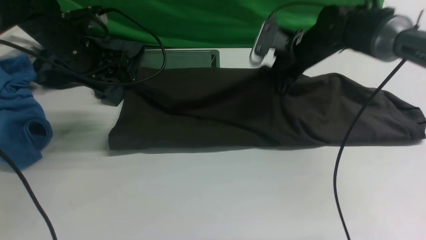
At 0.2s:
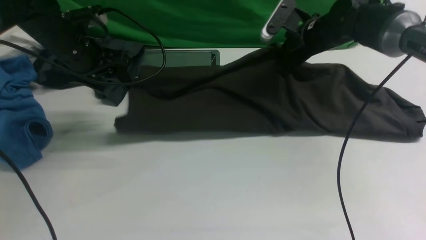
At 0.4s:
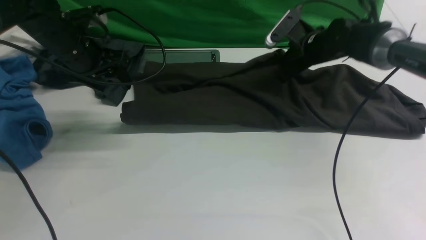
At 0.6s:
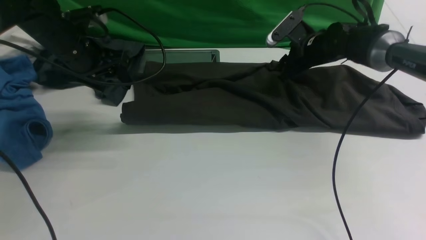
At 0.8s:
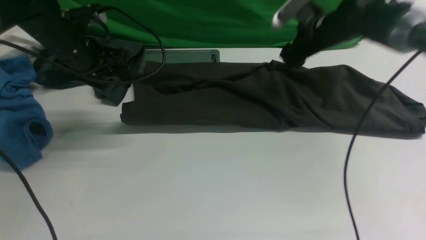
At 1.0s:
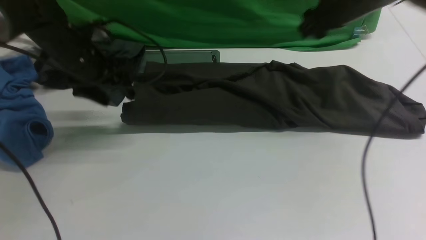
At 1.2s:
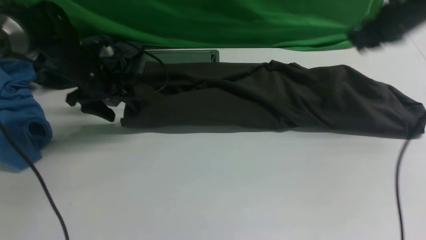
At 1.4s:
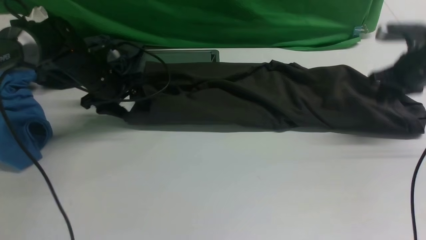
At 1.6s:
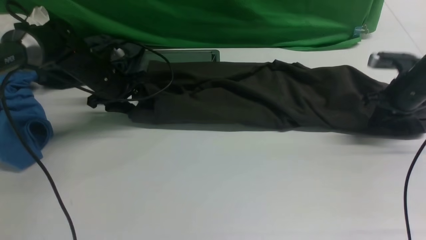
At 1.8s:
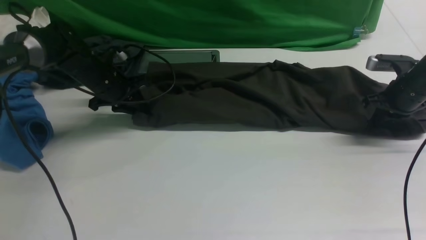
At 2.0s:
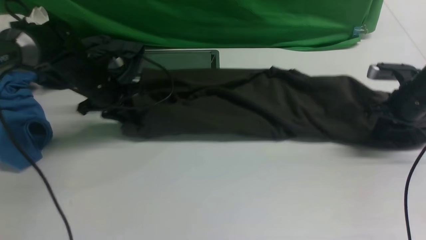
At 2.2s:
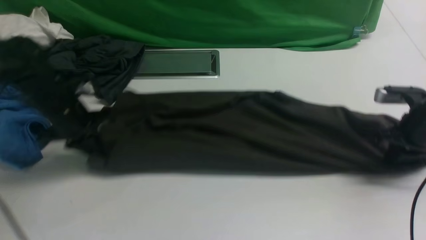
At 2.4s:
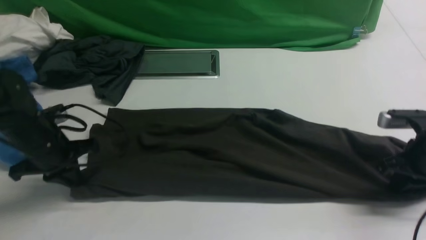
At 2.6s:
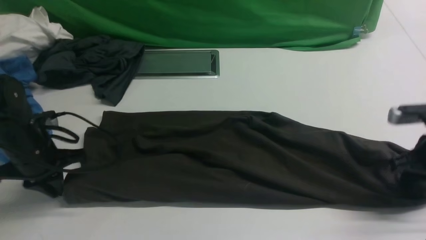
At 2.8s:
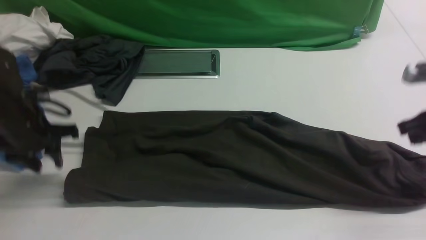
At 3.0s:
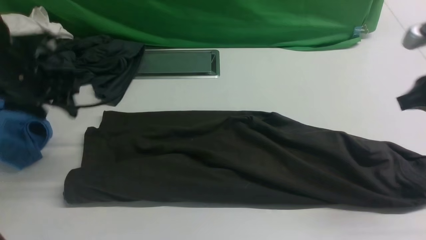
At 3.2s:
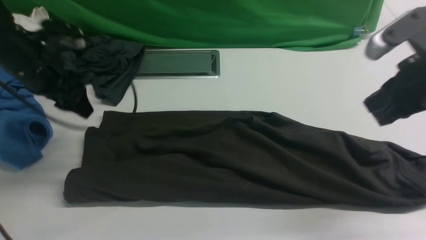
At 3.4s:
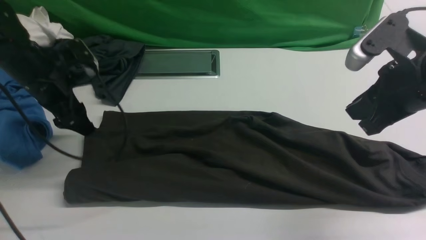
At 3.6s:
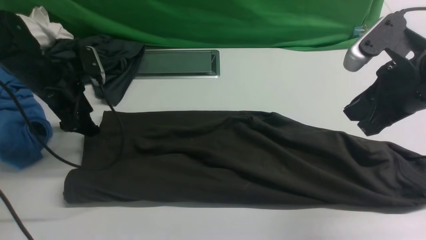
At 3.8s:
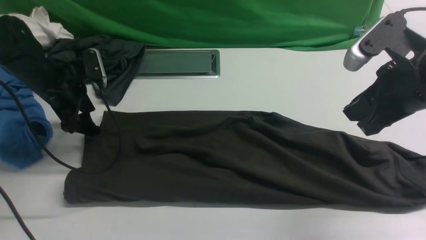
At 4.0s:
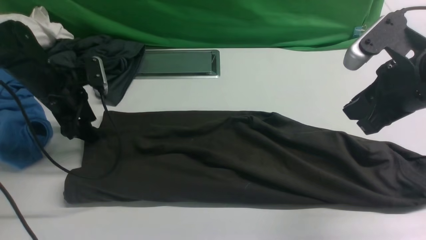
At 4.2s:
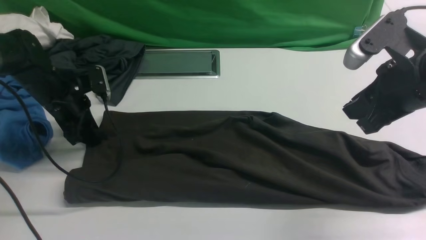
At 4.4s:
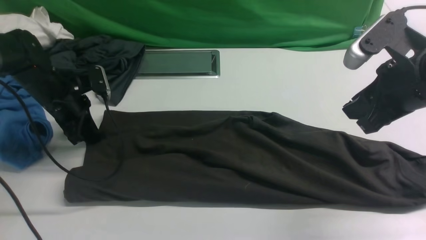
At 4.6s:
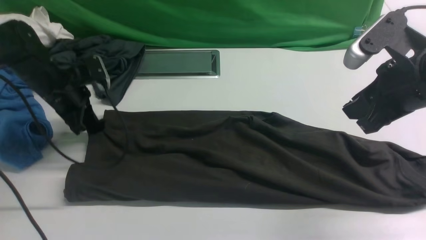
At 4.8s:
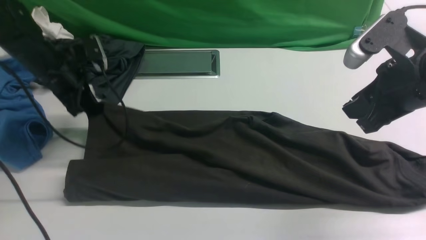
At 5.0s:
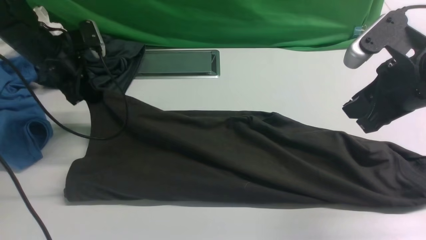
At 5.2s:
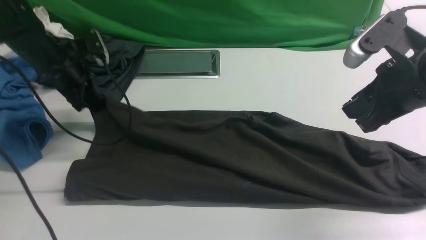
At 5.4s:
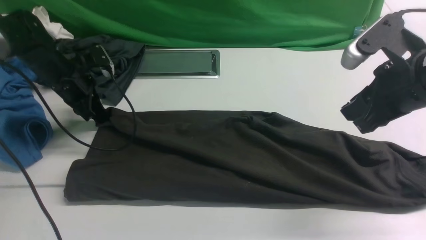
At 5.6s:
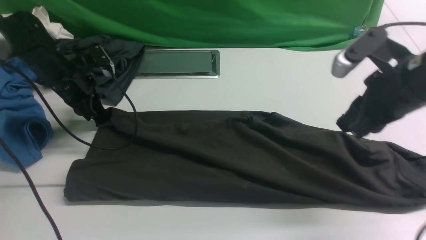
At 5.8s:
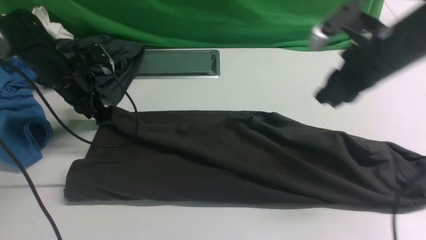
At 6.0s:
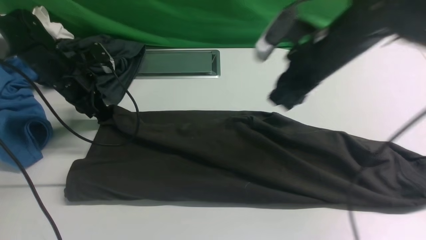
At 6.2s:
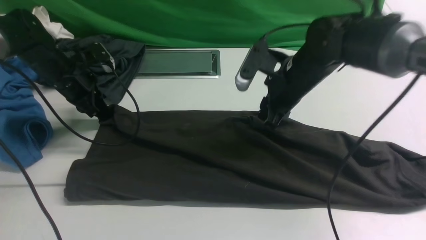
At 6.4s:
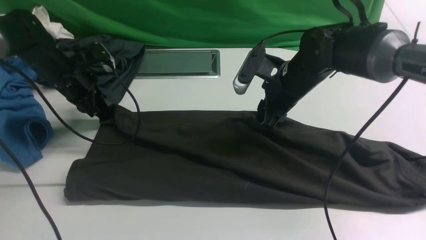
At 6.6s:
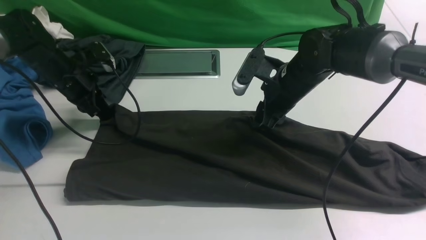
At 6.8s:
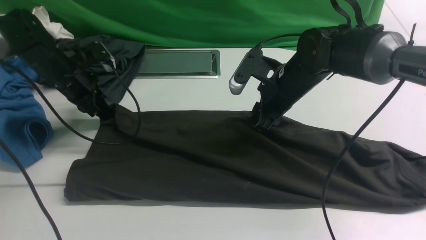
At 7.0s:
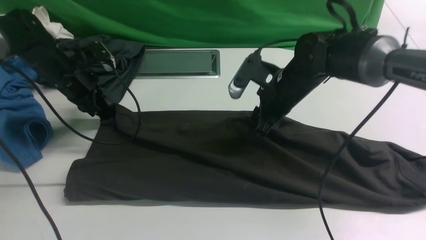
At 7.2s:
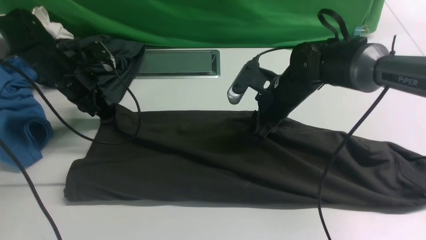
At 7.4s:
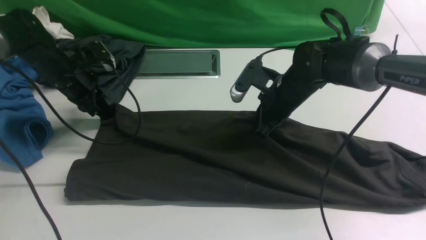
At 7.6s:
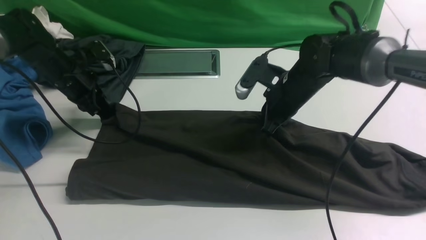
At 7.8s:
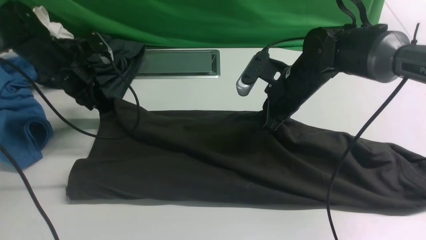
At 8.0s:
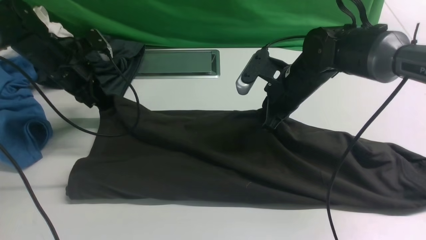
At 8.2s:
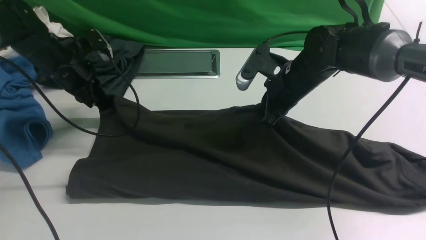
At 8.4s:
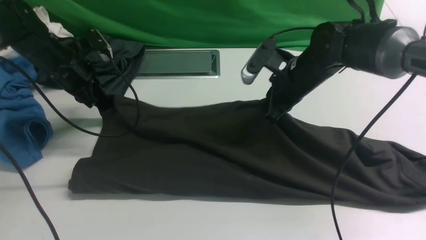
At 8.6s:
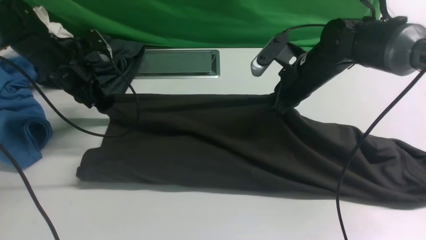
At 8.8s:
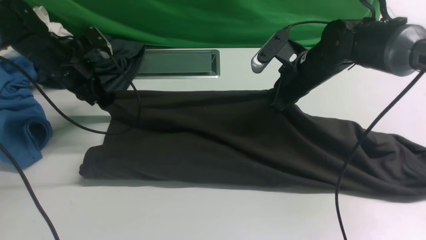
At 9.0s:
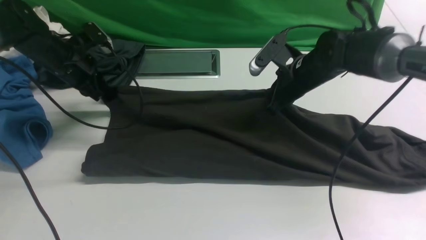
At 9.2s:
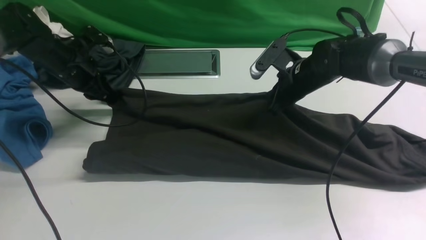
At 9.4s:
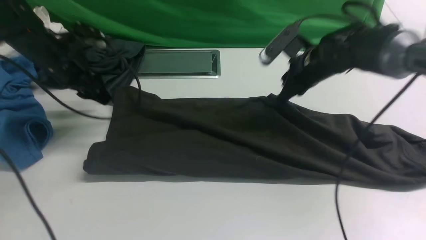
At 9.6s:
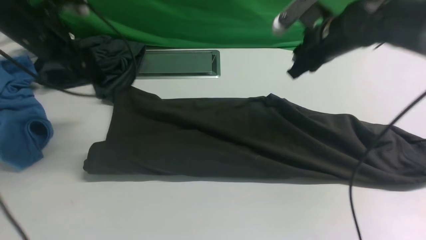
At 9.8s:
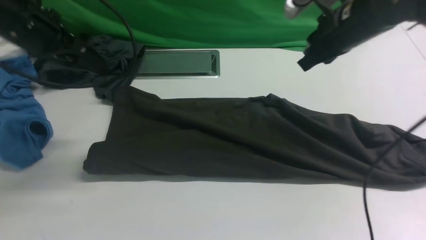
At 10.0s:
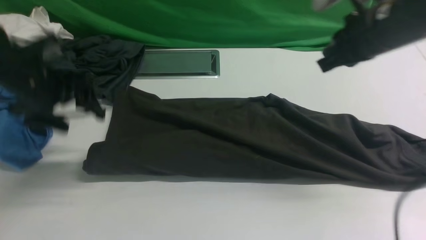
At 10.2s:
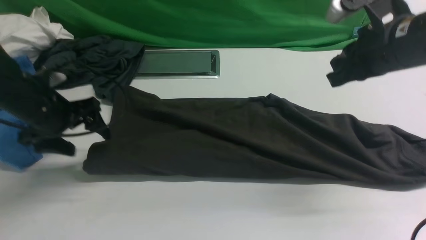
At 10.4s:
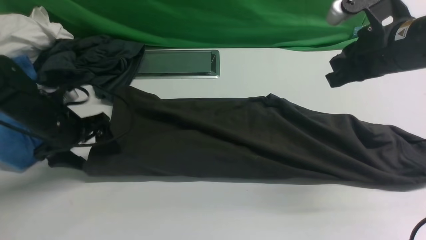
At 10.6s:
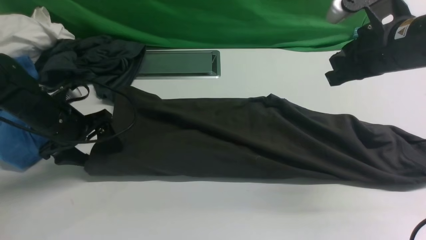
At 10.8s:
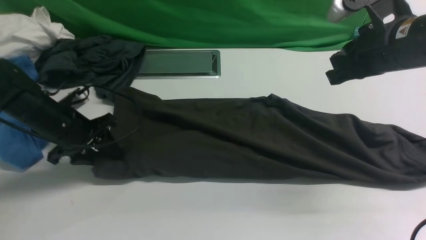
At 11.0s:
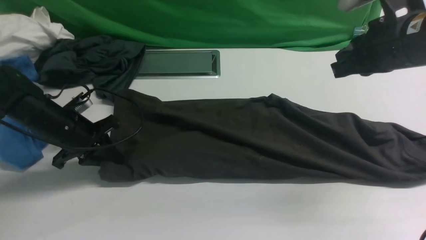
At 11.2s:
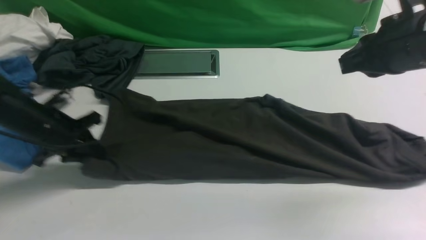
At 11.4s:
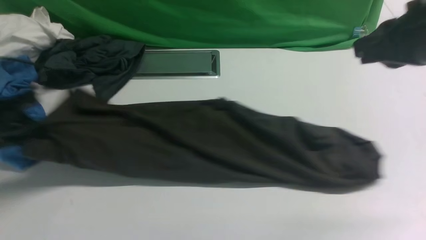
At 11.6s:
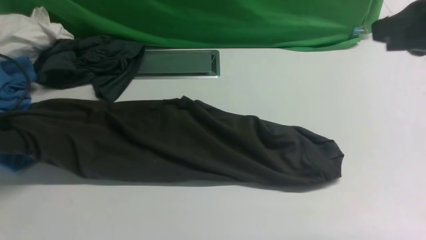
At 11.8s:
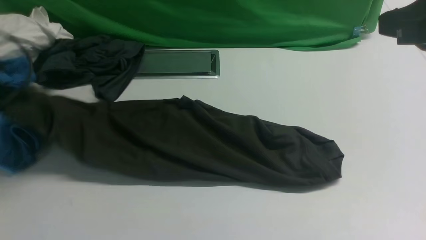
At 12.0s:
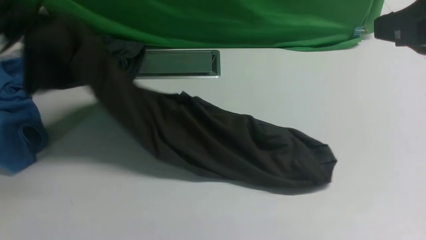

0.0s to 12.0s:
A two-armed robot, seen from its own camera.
Step, 0.0s to 9.8s: use both arms to drag the lower edge of the fabric forward and fold it over the upper edge.
Step, 10.0s to 11.4s: Hold the left edge of the fabric with your left arm.
0.0s to 1.6s: The left gripper goes approximately 10 cm downward. The right gripper moves to the right, approximately 20 cm, and opens, then closes once more.
1.6s to 3.0s: Both grippers travel together backward, upward and to the left, roughly 15 cm. The left gripper closes and opens again.
3.0s to 4.4s: The right gripper is displaced to the left by about 5 cm, and opens its fingers; the left gripper heads downward, covering some 5 cm, and closes its fingers.
4.4s to 6.0s: The right gripper moves forward and to the left, some 15 cm.
6.0s to 7.6s: The right gripper moves downward, about 10 cm, and closes up.
9.0s to 10.4s: The left gripper goes roughly 10 cm backward, travels upward and back again, approximately 10 cm each way, and opens its fingers; the right gripper heads upward, backward and to the right, covering some 20 cm.
10.4s to 12.0s: The right gripper goes some 15 cm backward and upward. The left gripper goes roughly 20 cm upward, and closes.

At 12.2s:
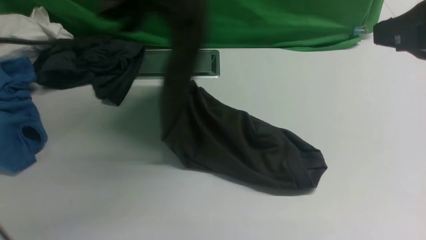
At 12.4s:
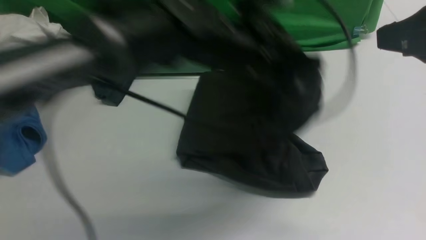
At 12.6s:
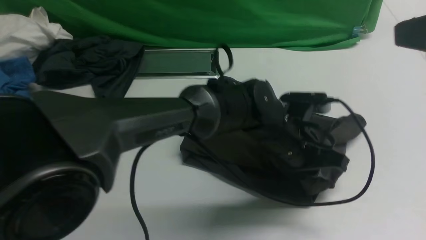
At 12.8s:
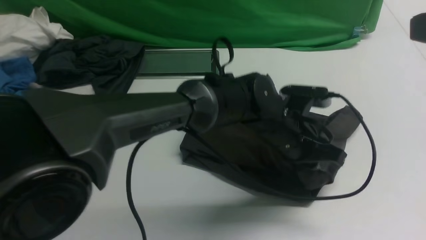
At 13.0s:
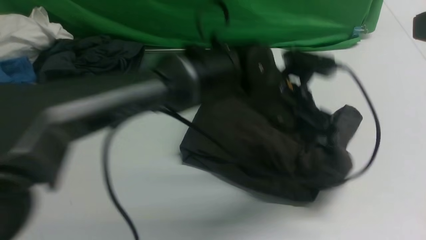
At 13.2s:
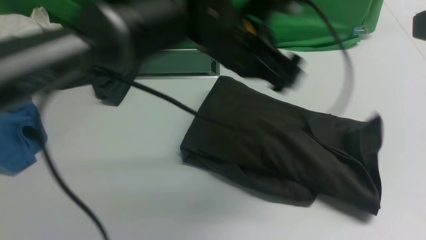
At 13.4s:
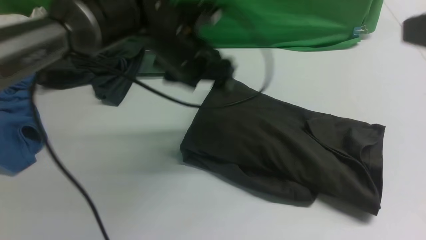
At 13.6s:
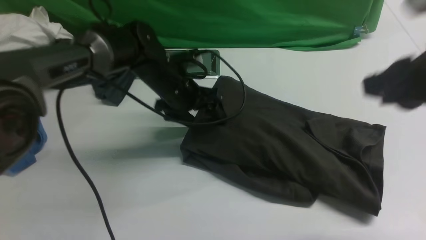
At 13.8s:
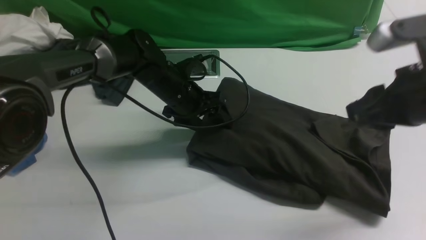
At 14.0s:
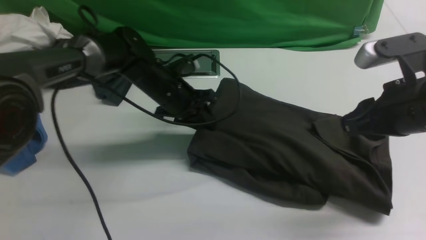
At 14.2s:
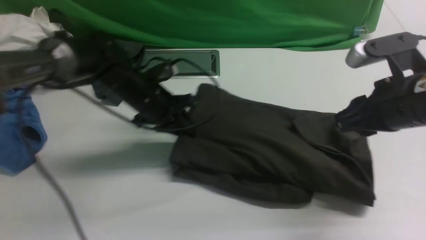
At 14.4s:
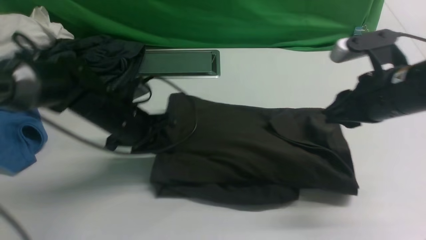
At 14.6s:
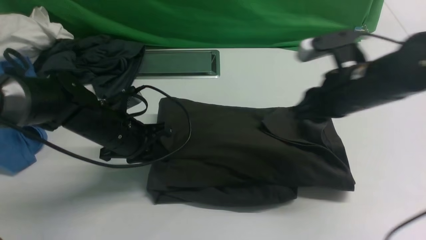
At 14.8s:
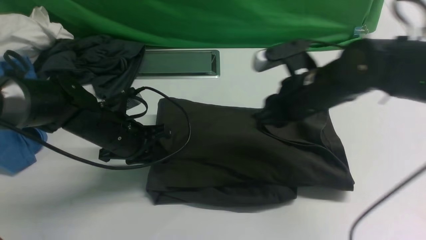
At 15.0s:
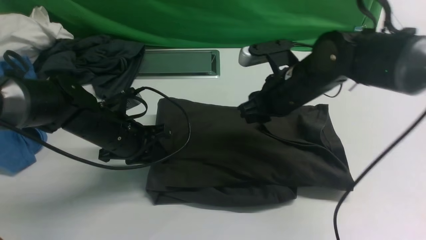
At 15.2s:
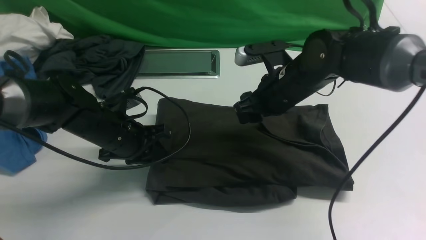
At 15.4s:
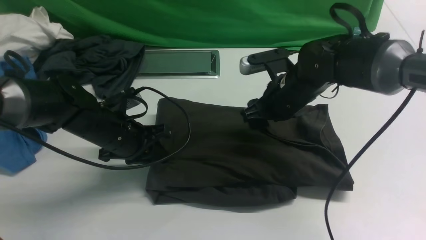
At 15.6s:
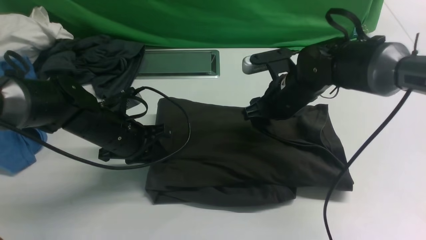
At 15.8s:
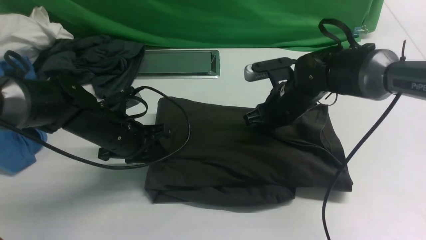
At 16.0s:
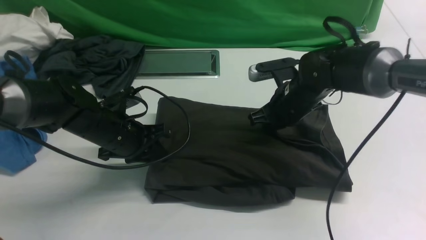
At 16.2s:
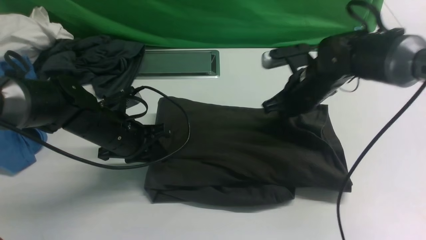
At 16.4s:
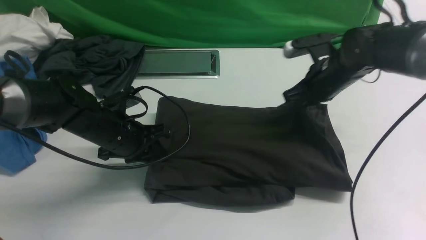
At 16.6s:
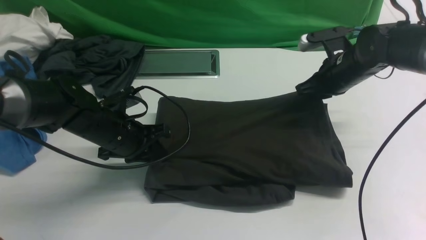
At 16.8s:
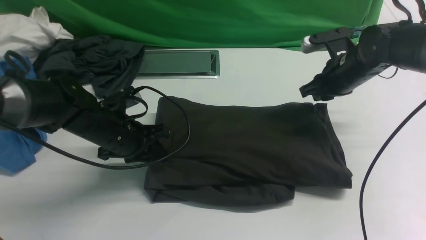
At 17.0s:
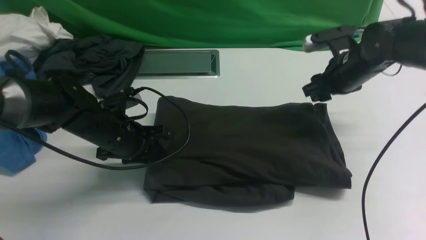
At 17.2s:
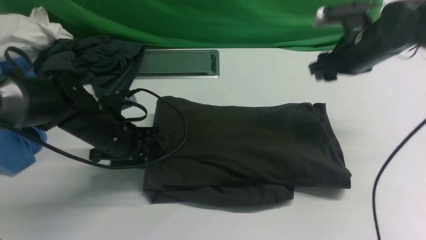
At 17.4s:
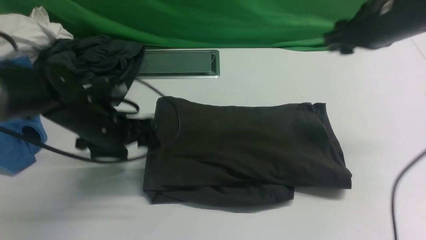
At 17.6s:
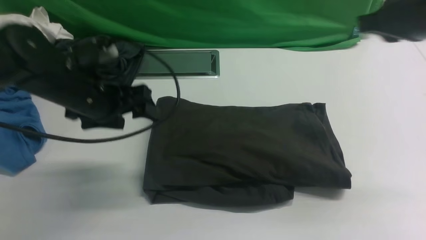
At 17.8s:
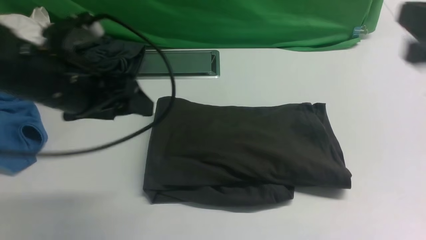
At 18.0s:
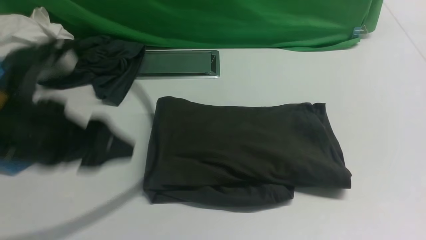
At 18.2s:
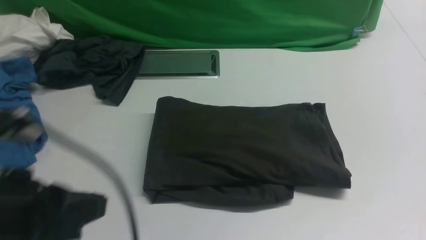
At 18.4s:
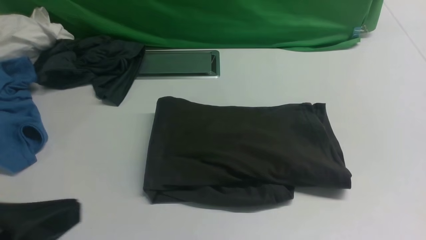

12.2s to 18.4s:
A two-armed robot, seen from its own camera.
Step, 12.2s to 13.0s: Drag the left edge of the fabric to the left with your left arm and fold it to the right edge.
12.2s to 13.8s: The right gripper moves downward, approximately 10 cm, and opens up. Meanwhile the left gripper travels downward by approximately 20 cm, reaches about 20 cm to the right, then returns, and opens its fingers.
13.8s to 15.4s: The right gripper moves forward, to the left and downward, some 20 cm, and opens its fingers, while the left gripper goes approximately 10 cm backward and to the left, and closes.
15.4s to 16.8s: The right gripper travels to the right by approximately 10 cm, and closes.
16.8s to 18.4s: The left gripper heads backward and upward, covering roughly 35 cm, and opens and closes again, while the right gripper goes roughly 35 cm backward, and closes its fingers.
